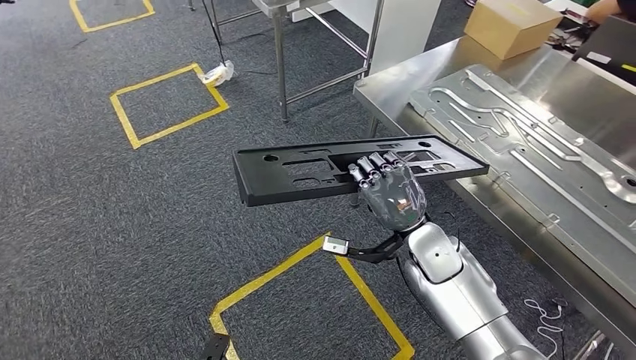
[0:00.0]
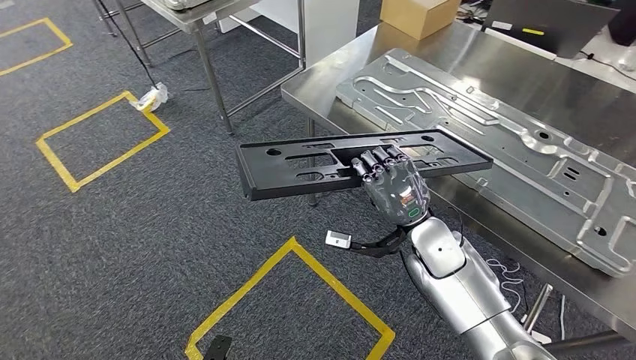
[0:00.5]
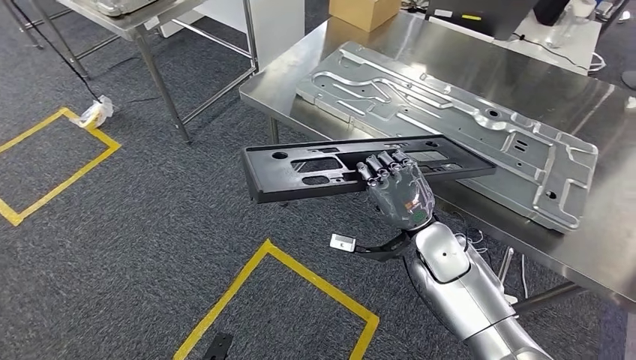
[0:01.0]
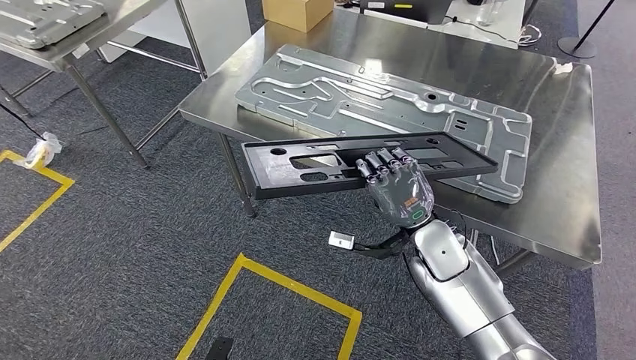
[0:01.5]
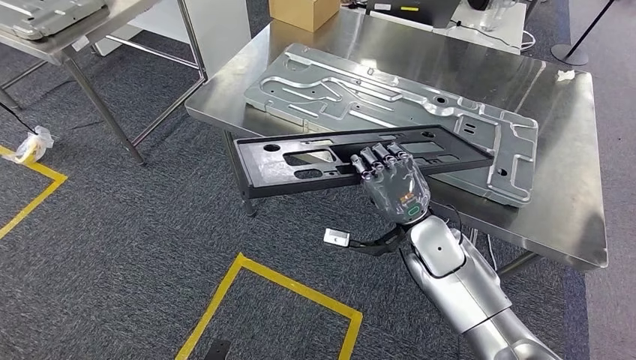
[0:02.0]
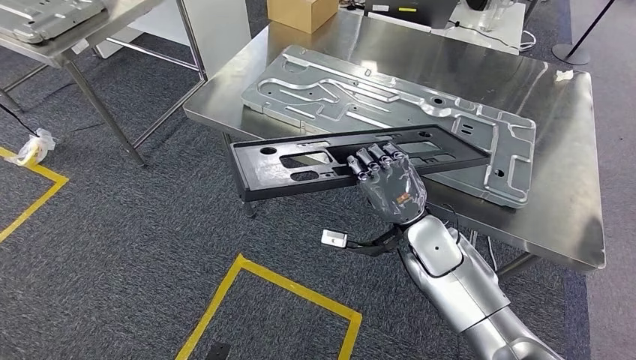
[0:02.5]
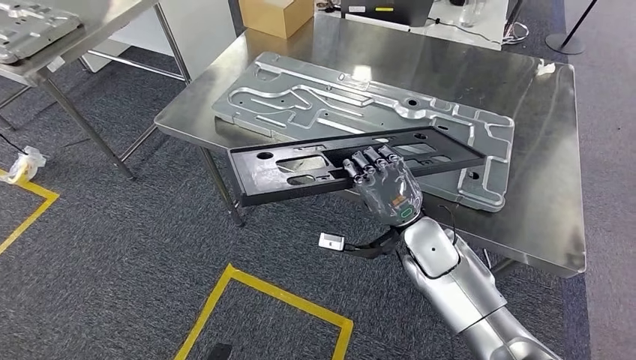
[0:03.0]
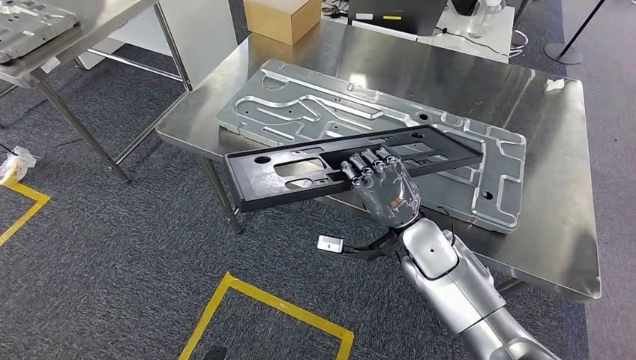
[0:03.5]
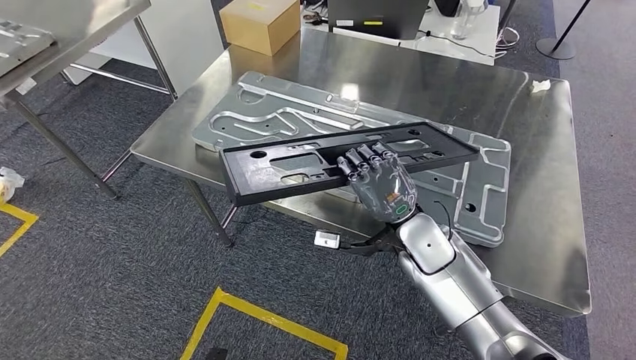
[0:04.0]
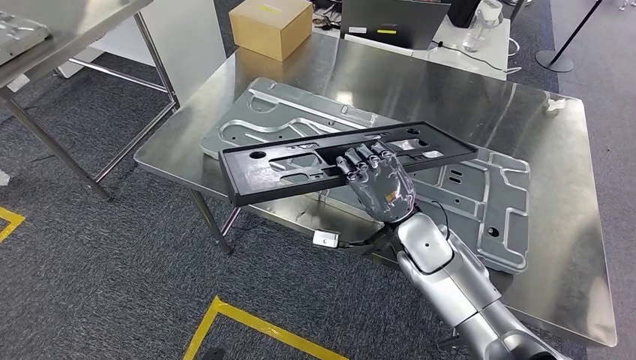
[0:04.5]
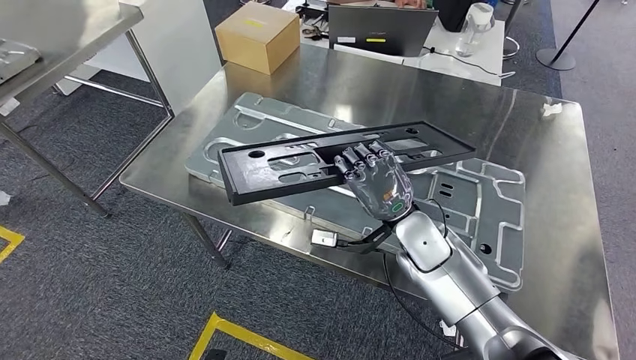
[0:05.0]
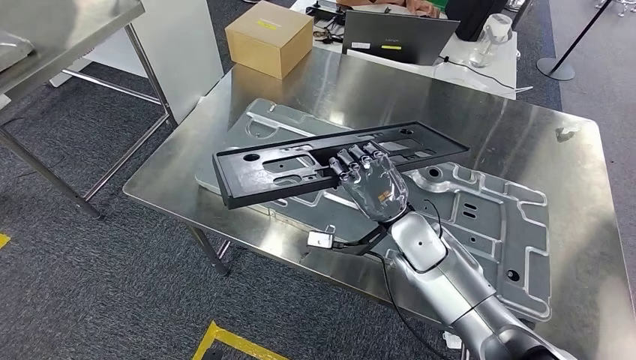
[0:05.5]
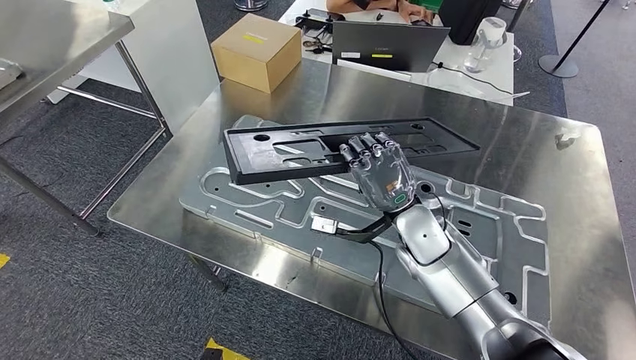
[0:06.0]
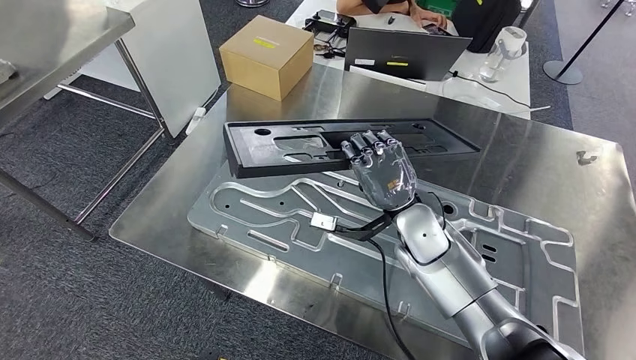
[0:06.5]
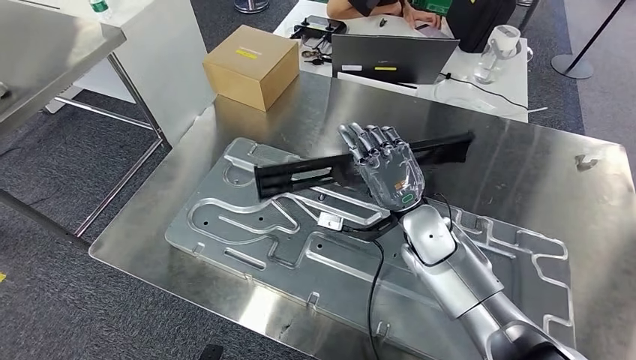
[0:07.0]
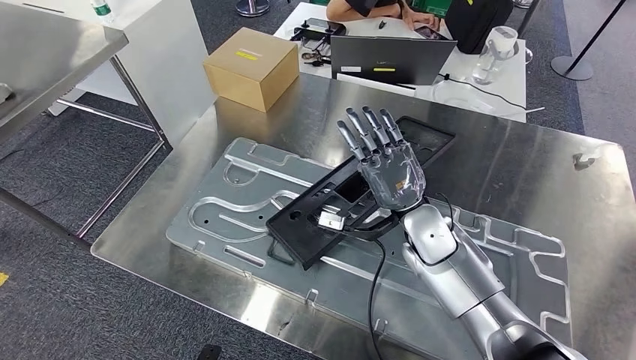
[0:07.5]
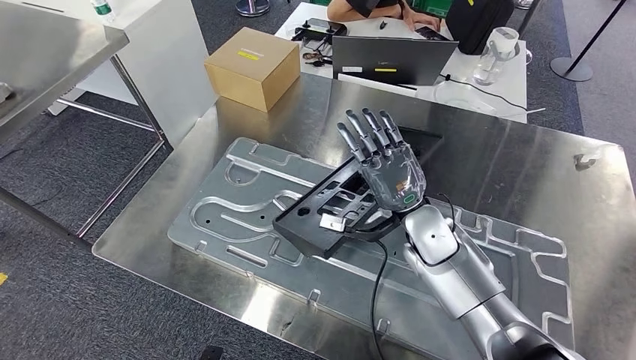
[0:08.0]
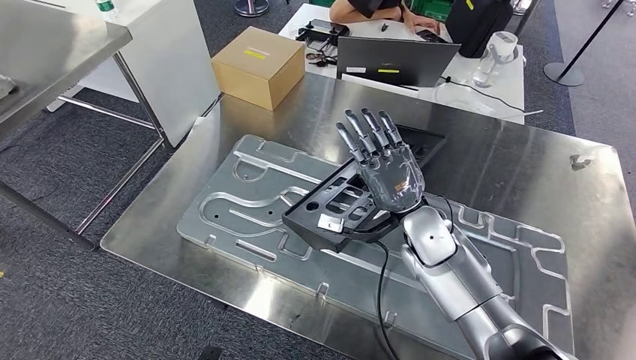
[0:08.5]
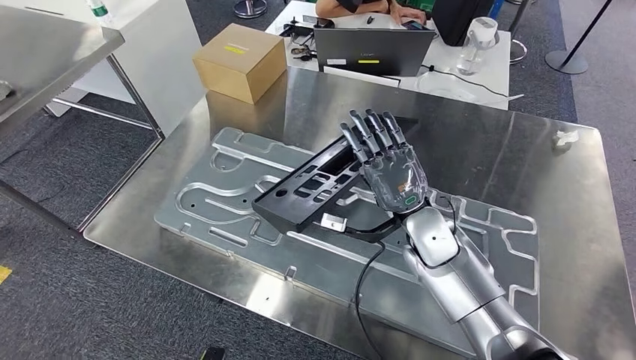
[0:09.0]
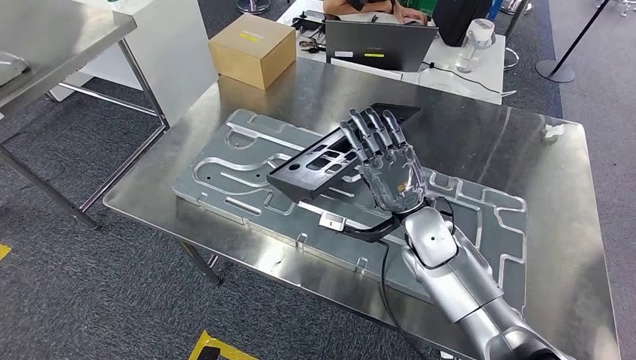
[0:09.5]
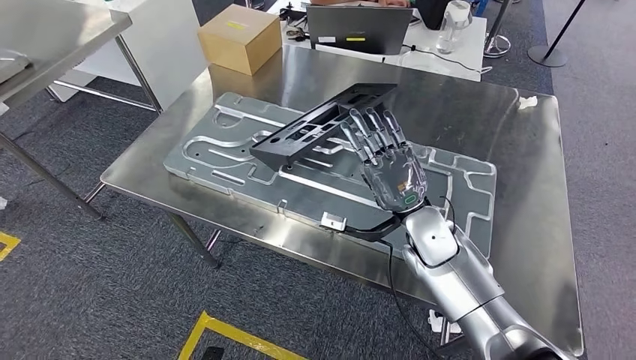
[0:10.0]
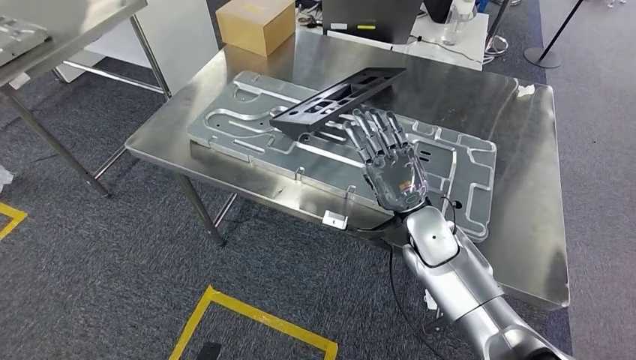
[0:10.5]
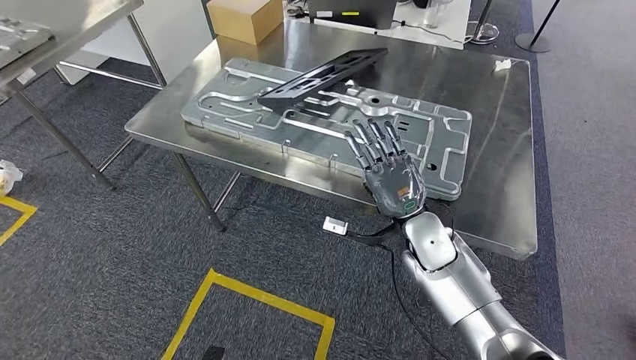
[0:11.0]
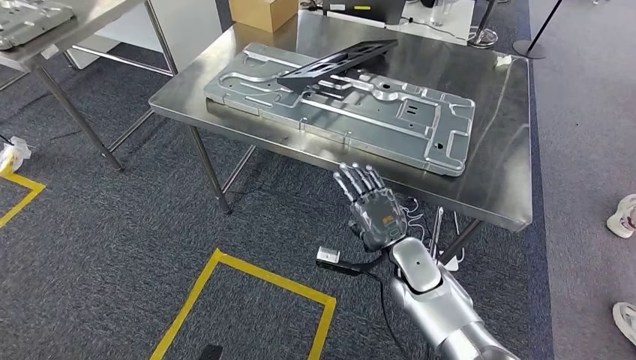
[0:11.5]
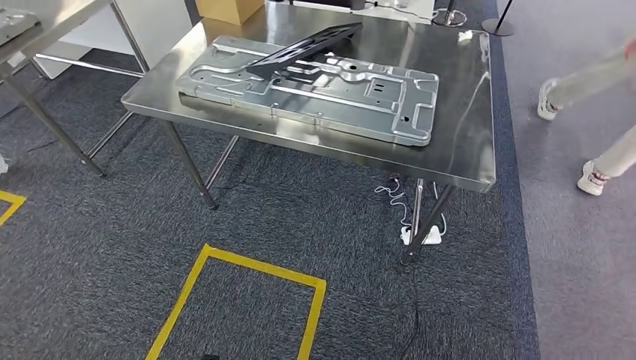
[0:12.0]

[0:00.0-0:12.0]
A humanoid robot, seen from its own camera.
Step, 0:00.0 to 0:03.5: Move the large material to the workbench.
Step, 0:05.0 to 0:10.5: Insert the large material into the corresponding slot on the workbench.

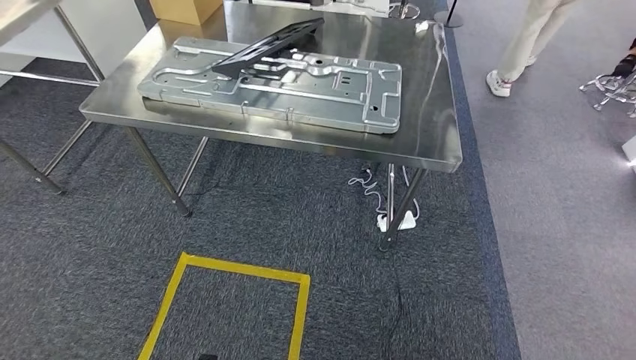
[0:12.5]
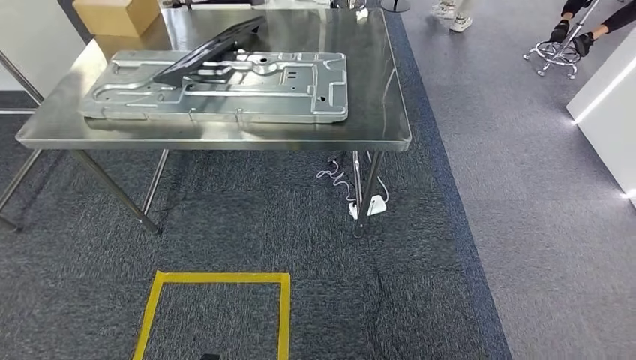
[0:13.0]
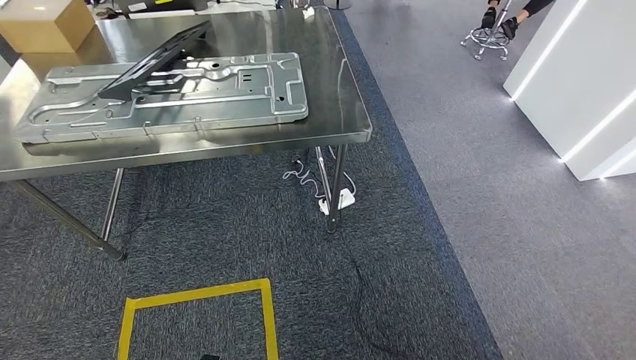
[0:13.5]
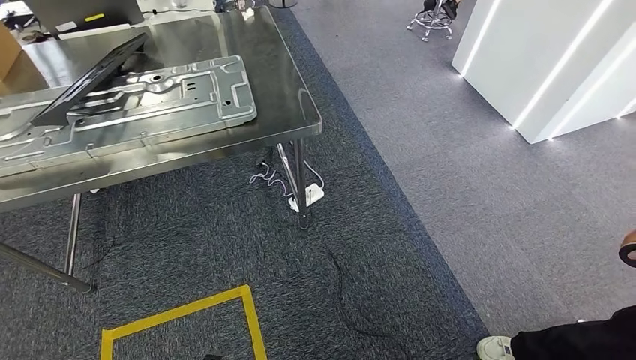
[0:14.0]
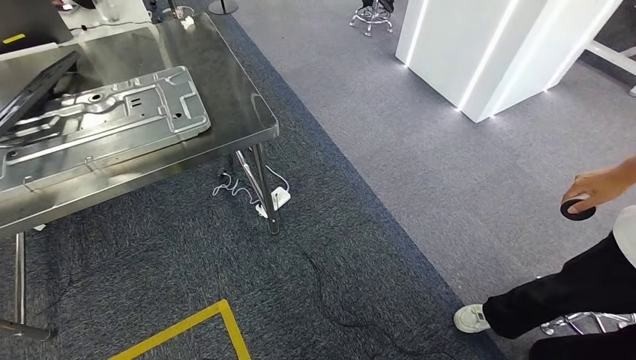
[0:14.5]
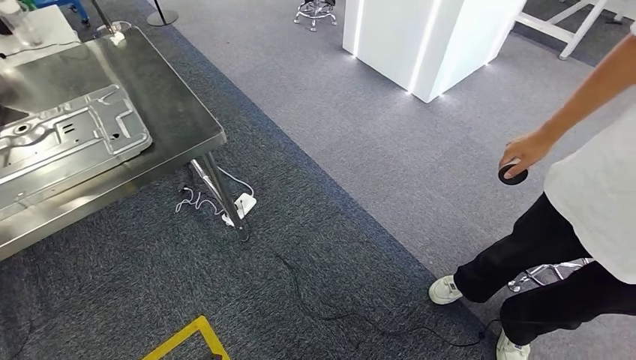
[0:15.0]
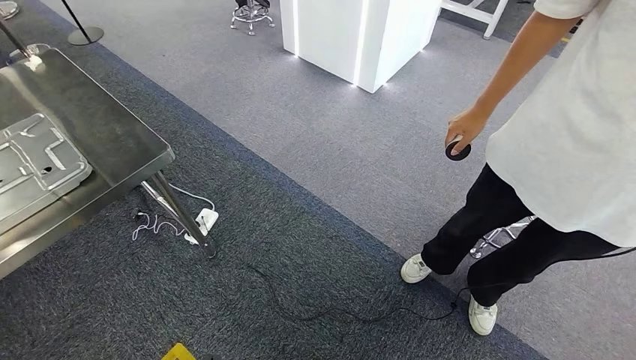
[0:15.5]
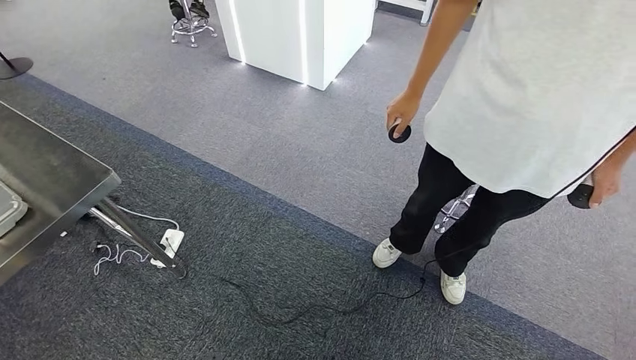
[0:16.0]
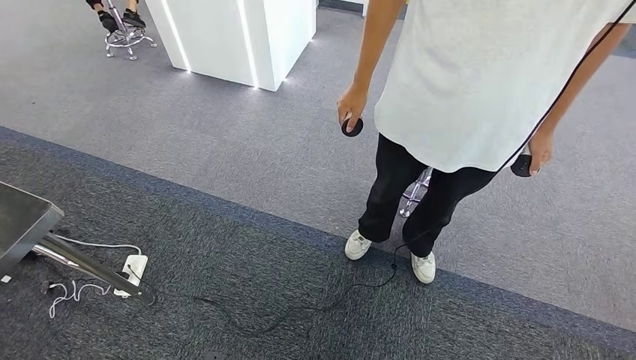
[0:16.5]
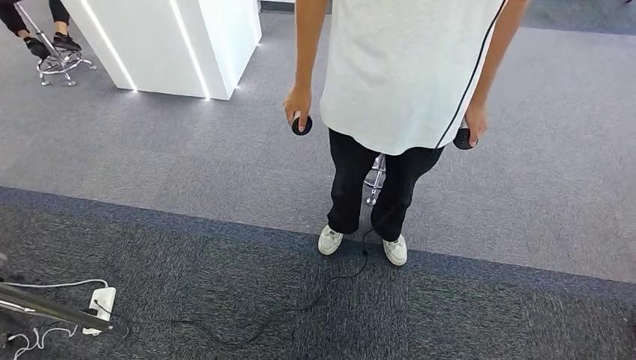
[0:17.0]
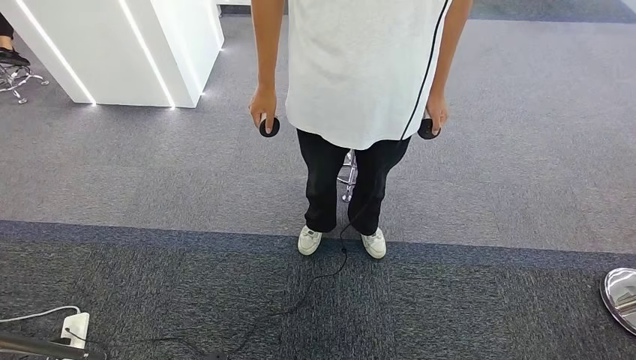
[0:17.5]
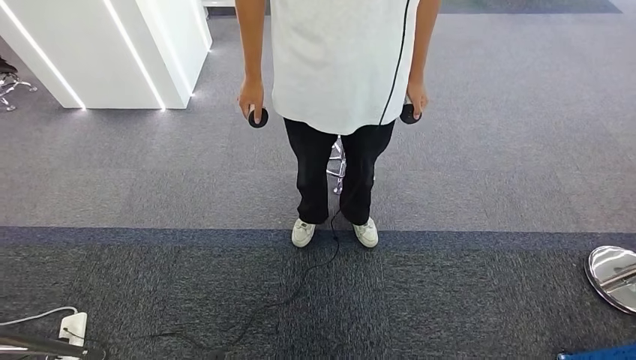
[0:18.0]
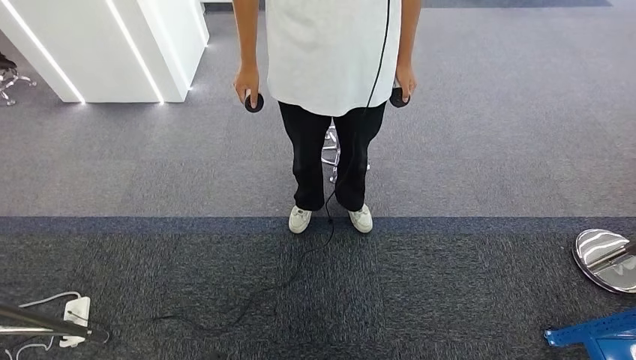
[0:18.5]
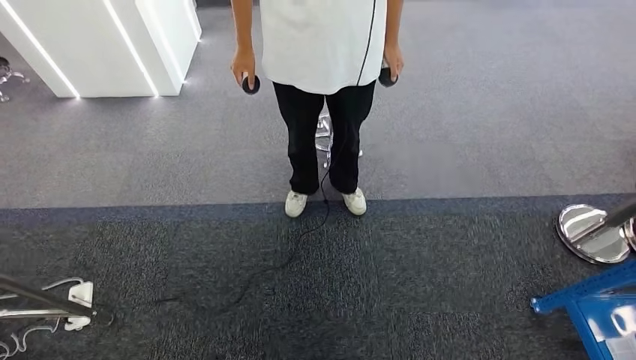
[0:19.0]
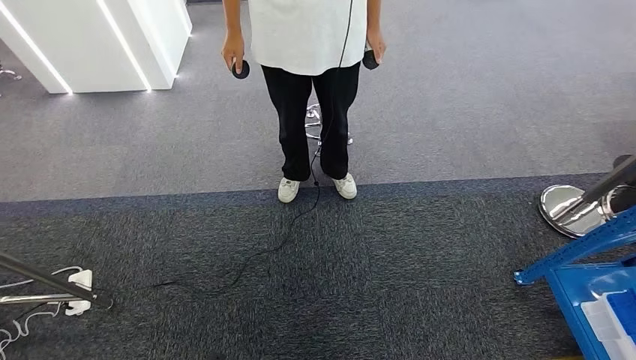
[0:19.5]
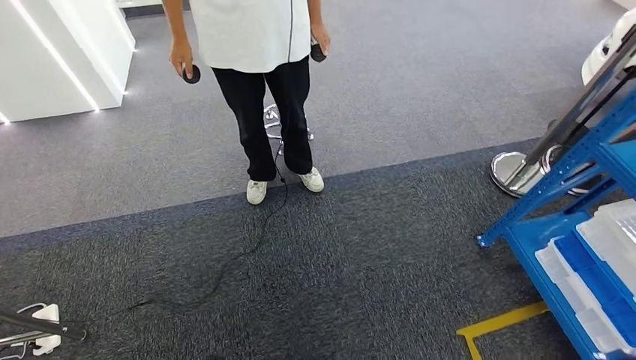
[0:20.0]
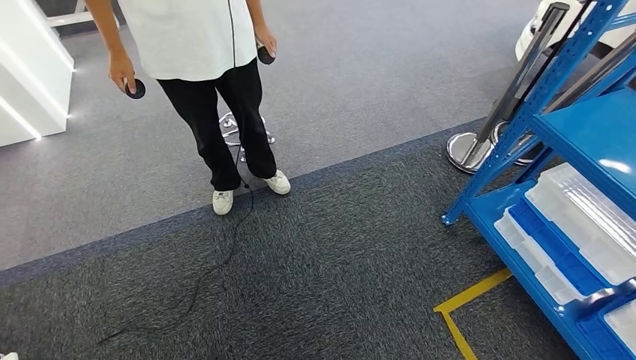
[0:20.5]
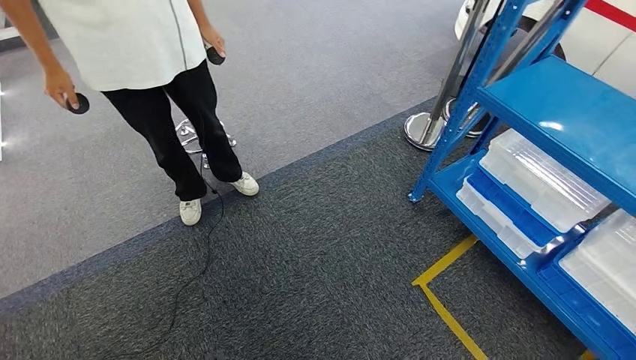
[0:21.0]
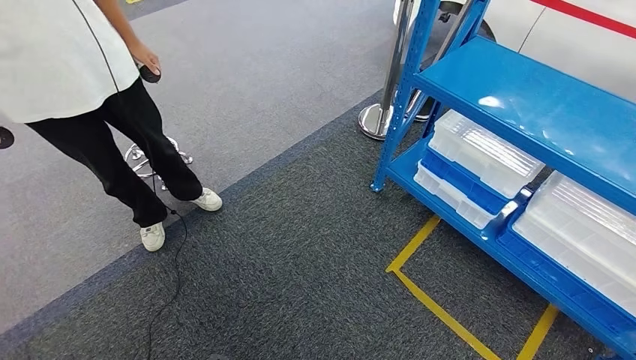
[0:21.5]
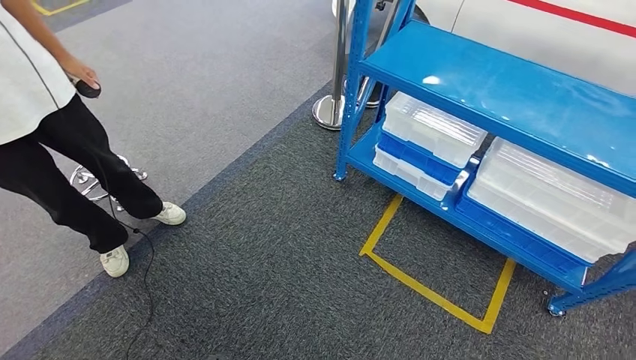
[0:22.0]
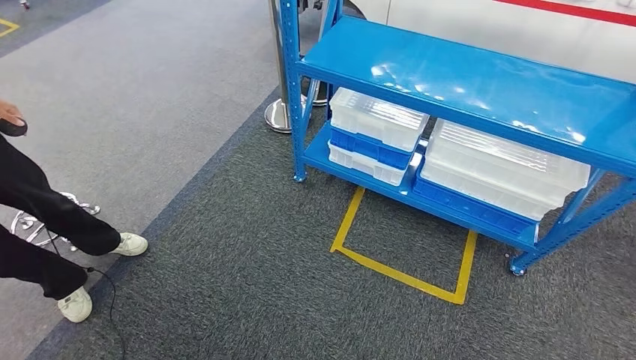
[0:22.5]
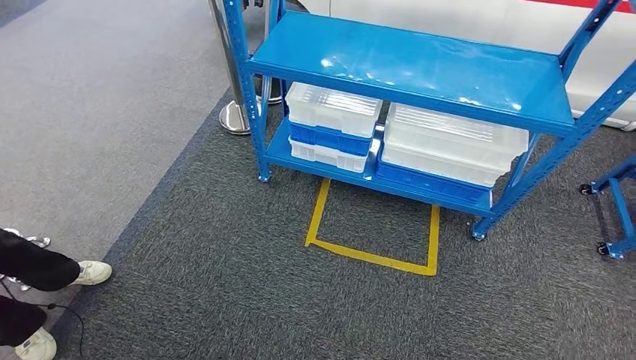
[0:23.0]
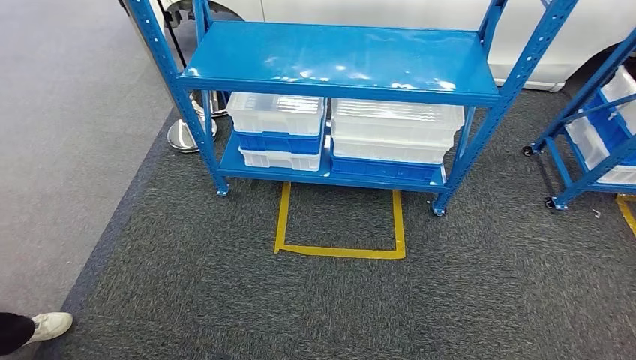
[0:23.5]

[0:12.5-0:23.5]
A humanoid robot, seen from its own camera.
Step, 0:12.5 to 0:23.0: Move to the initial position of the shelf.
